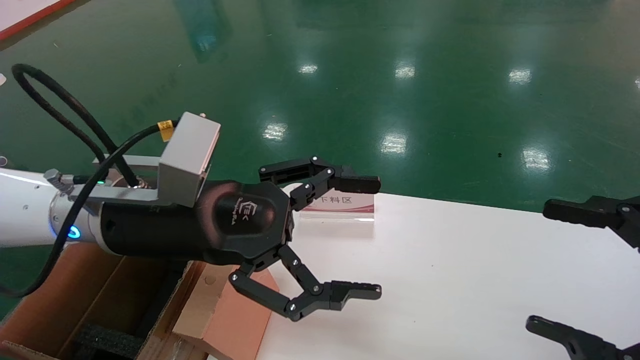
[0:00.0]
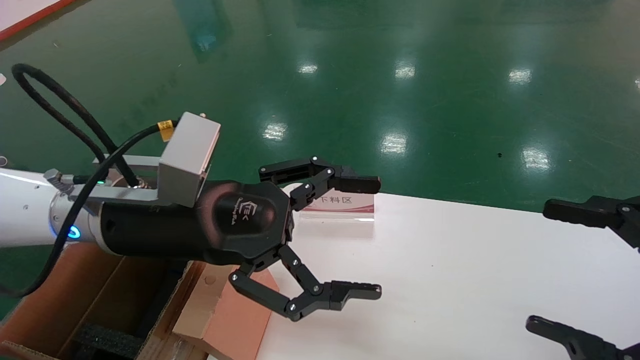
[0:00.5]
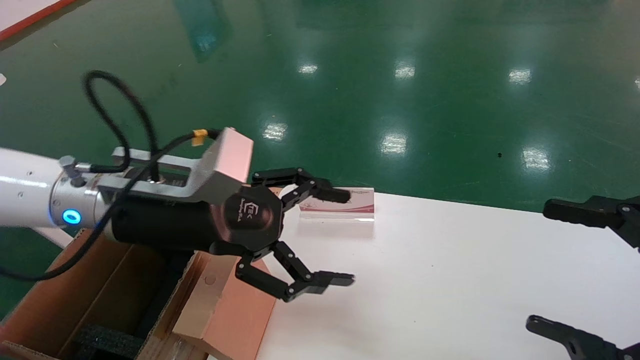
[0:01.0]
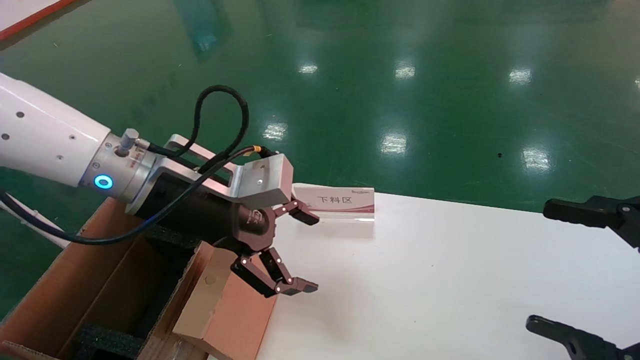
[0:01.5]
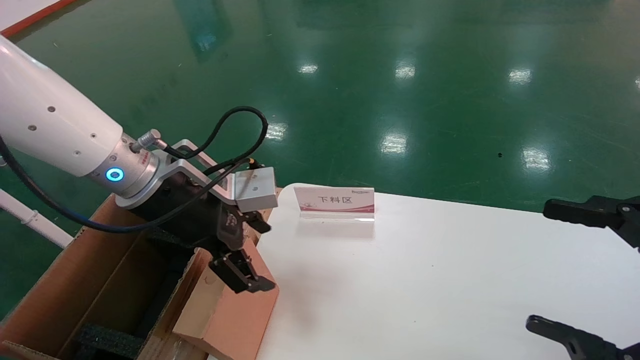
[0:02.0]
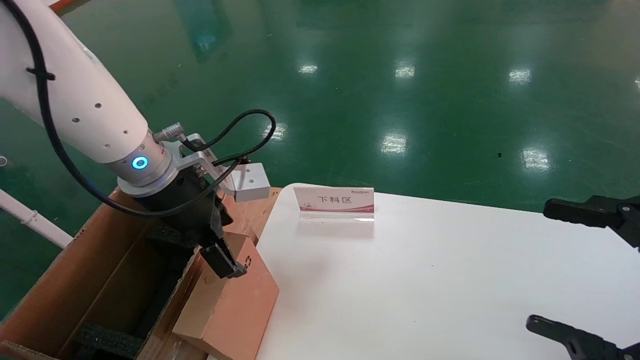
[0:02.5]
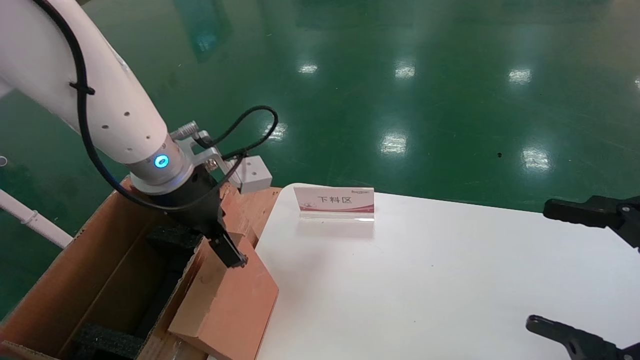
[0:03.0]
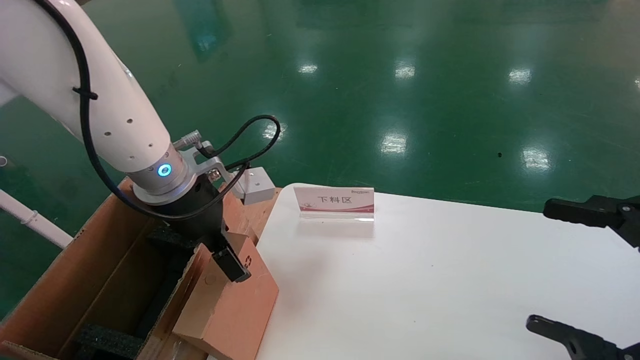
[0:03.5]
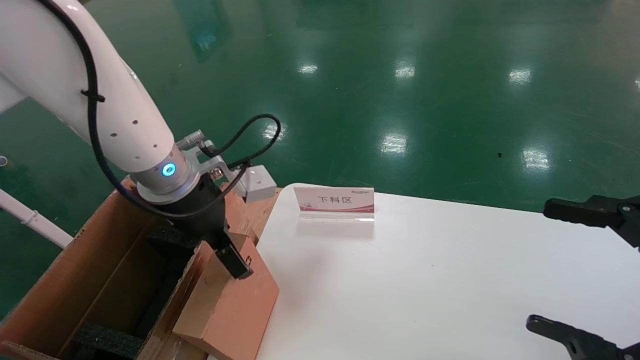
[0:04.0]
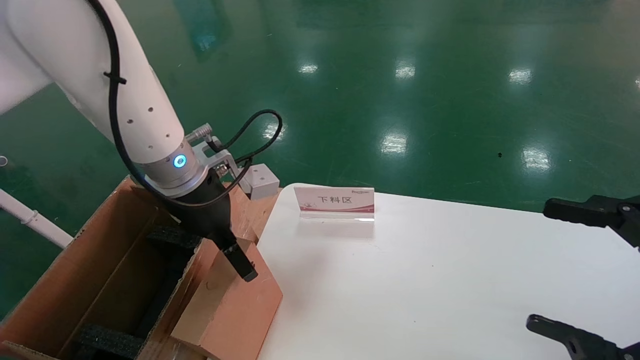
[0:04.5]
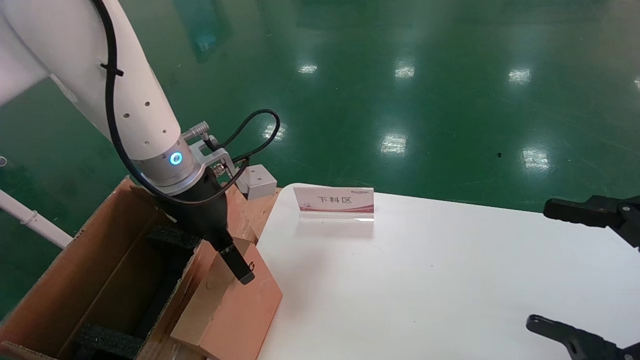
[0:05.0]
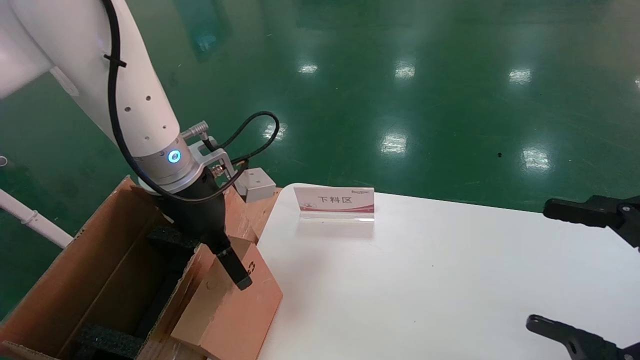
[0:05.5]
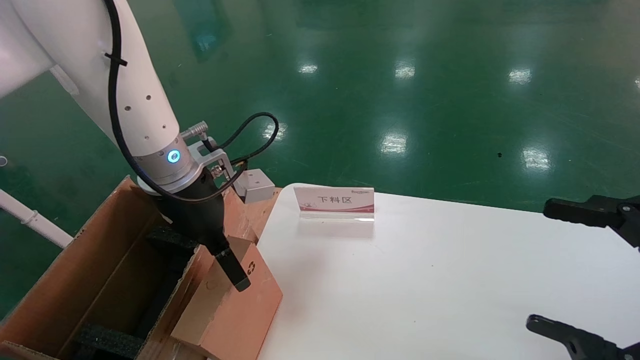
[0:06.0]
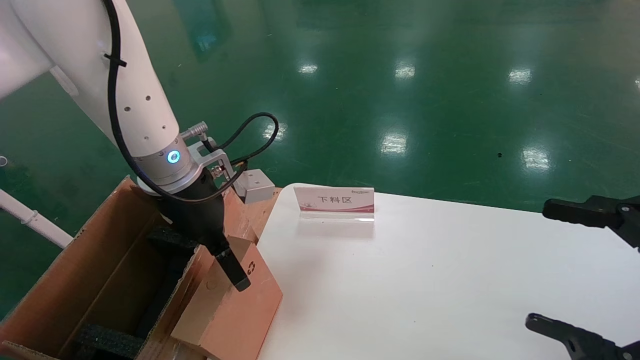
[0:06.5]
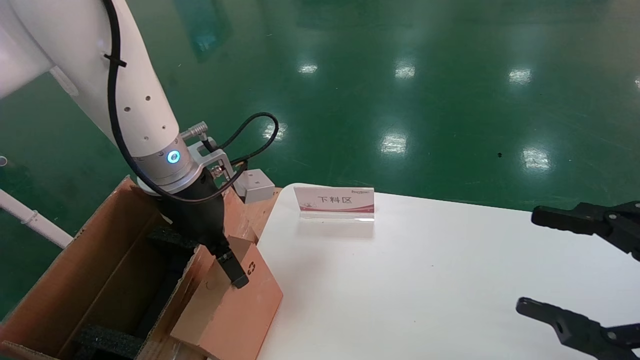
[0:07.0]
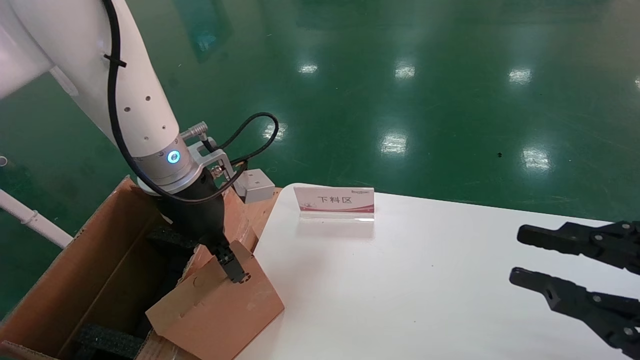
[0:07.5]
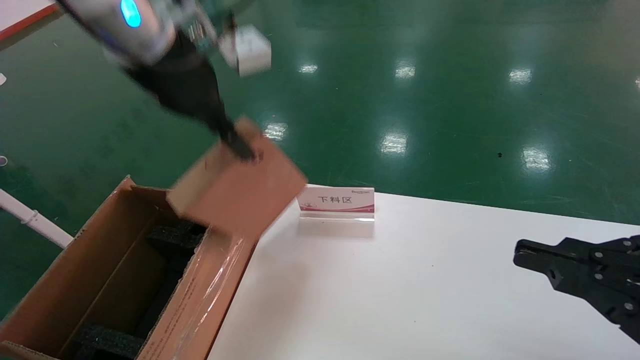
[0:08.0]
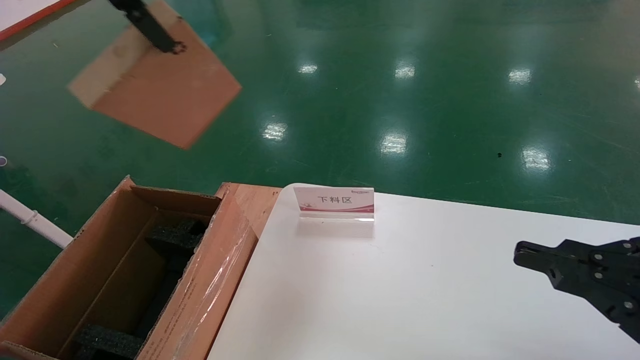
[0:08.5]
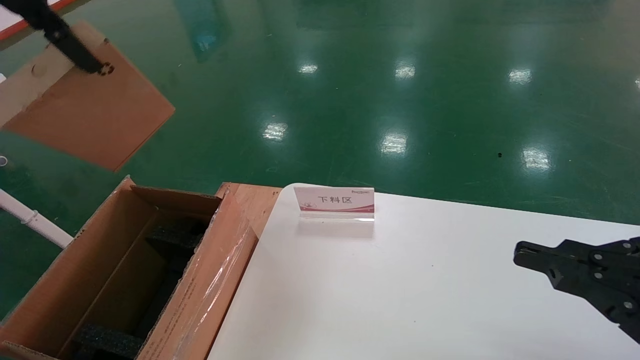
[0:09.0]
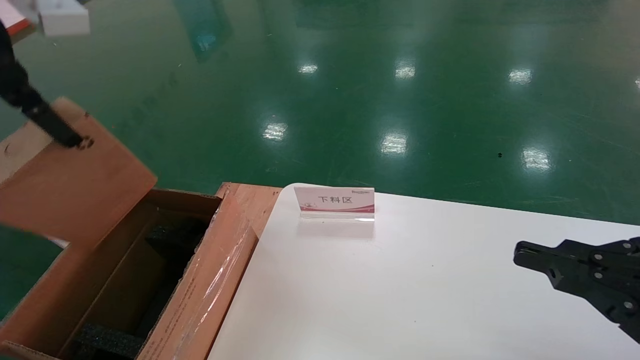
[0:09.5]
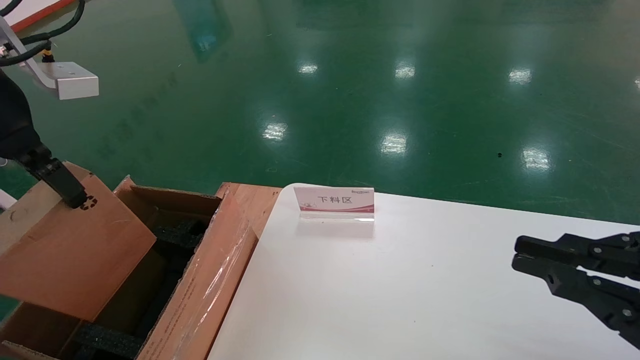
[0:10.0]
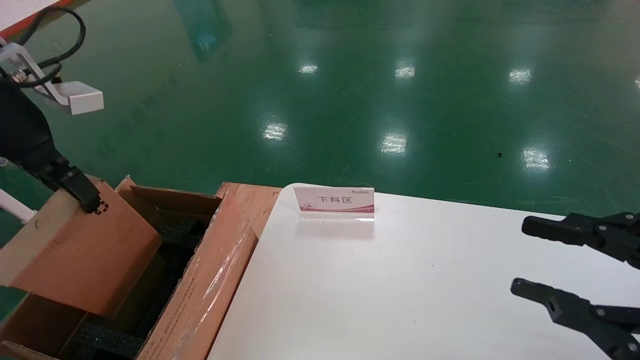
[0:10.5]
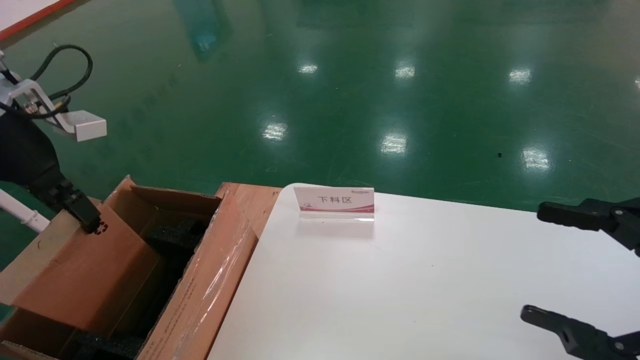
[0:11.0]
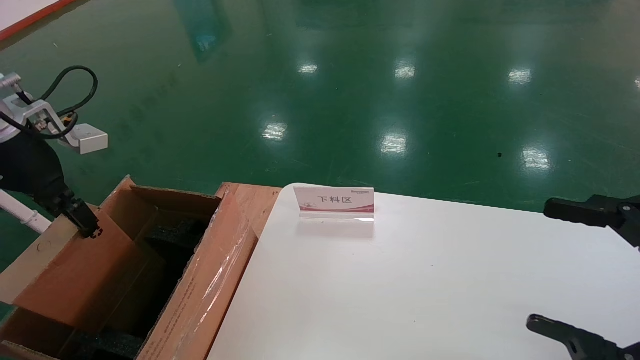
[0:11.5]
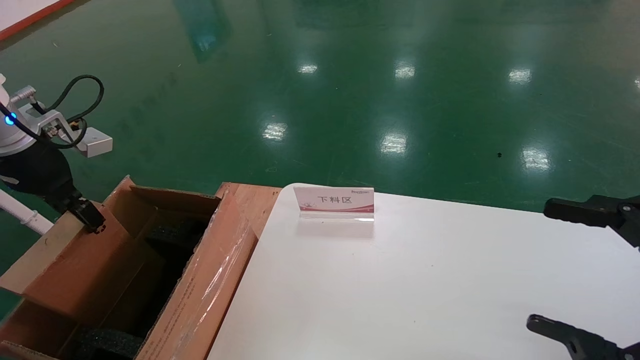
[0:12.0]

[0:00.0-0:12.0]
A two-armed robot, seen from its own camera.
Task of the whole recording: pick up the small cardboard box and load it into the large cardboard box.
Step, 0:01.0 to 0:06.0: Pick up the mouse and power cord box.
0:00.0 to 0:02.0: The left gripper moves forward, approximately 5 cm.
0:04.0 to 0:06.0: The grippers stay close to where they were, moving slightly.
0:06.0 to 0:08.0: The right gripper closes up. Meanwhile the left gripper shifts approximately 15 cm upward, and closes its fingers.
0:08.0 to 0:10.0: The left gripper goes approximately 15 cm to the left and backward.
0:10.0 to 0:12.0: The right gripper opens; the left gripper is displaced downward, to the left and forward by approximately 15 cm.

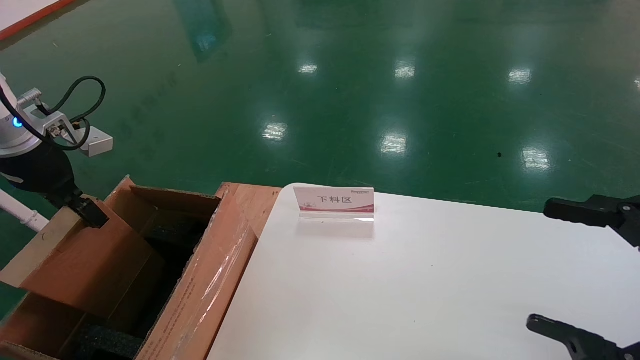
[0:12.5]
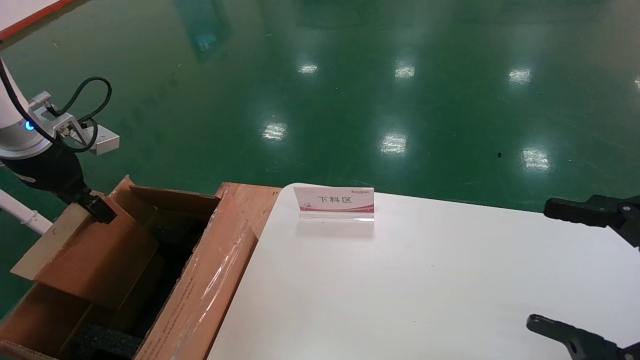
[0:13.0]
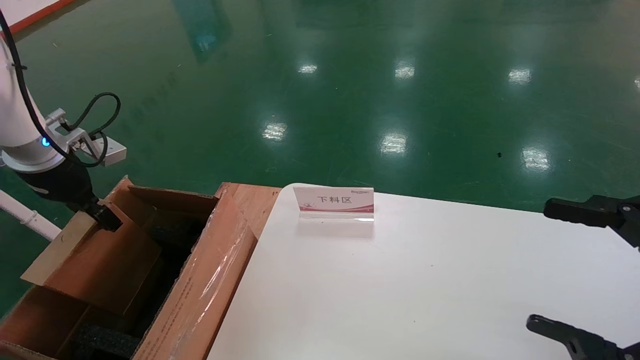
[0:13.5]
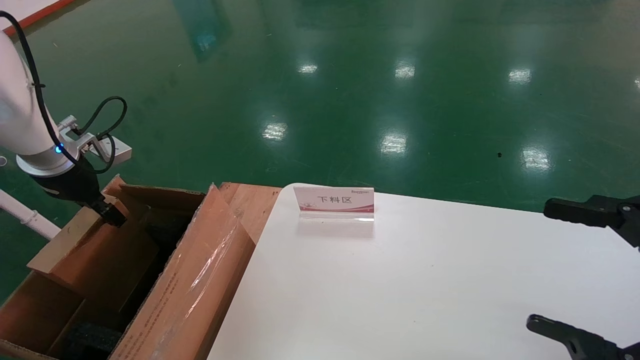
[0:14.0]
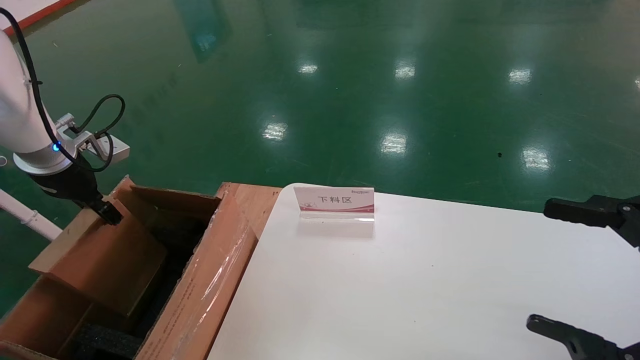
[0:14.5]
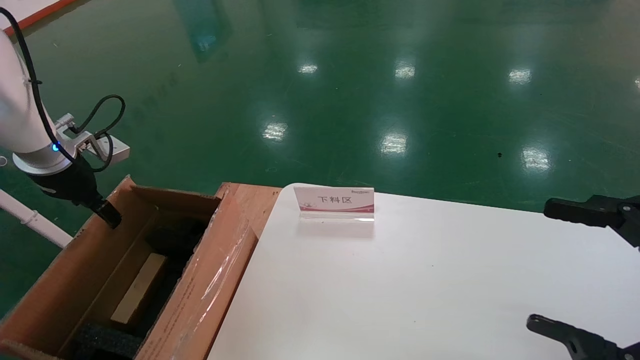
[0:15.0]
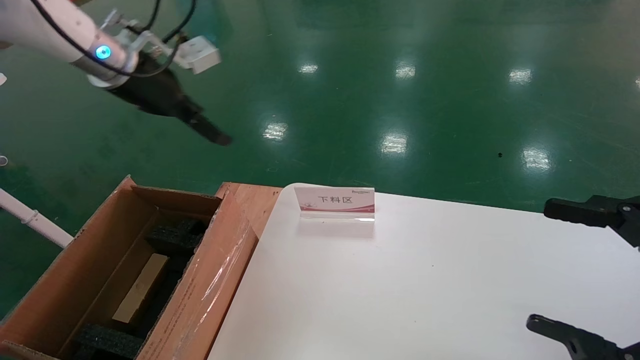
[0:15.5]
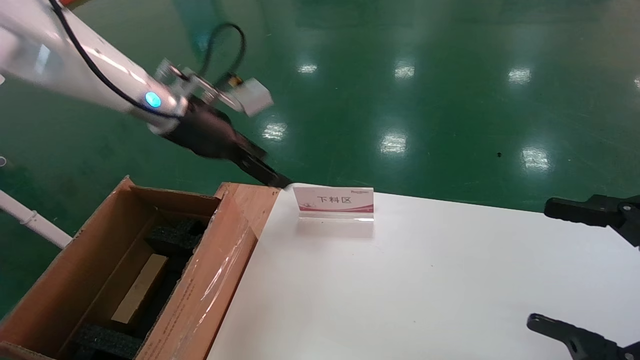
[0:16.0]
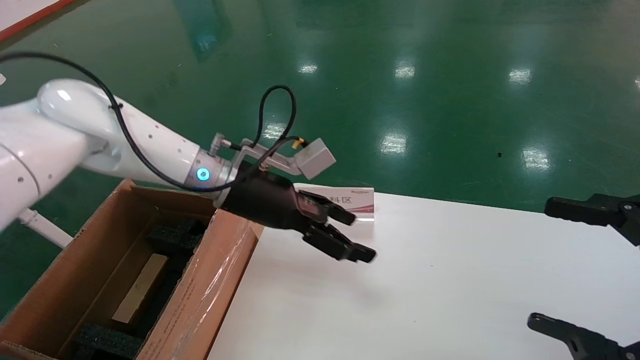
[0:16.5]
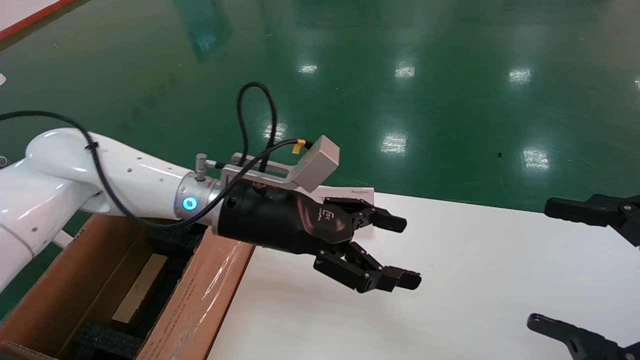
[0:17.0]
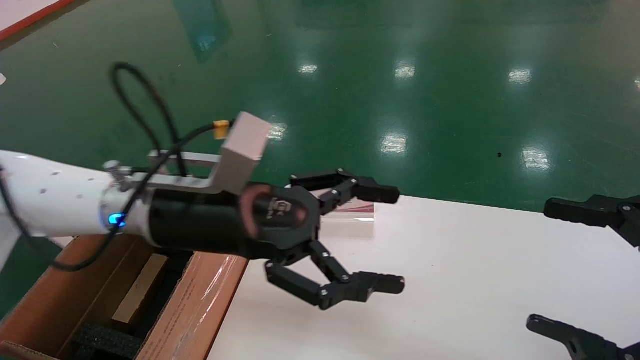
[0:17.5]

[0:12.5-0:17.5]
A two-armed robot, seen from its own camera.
Task of the whole recording: pick up the small cardboard box and load it into the large cardboard box.
0:12.5 to 0:15.0: The left gripper travels forward by some 5 cm, and opens up.
0:15.0 to 0:17.5: The left gripper shifts some 25 cm to the right, and opens its fingers.
